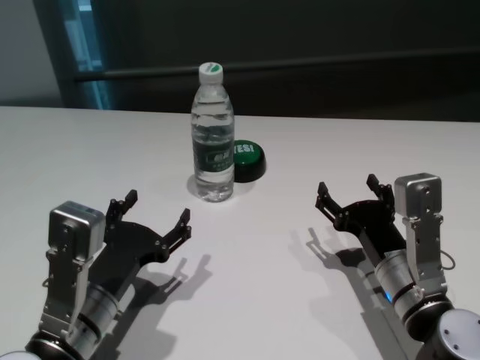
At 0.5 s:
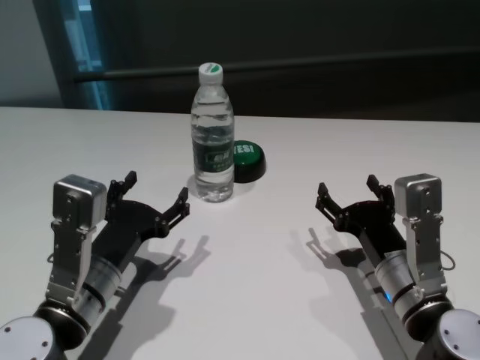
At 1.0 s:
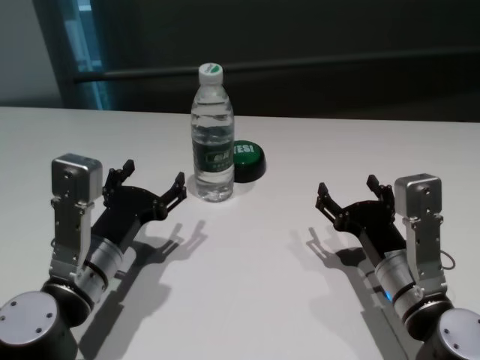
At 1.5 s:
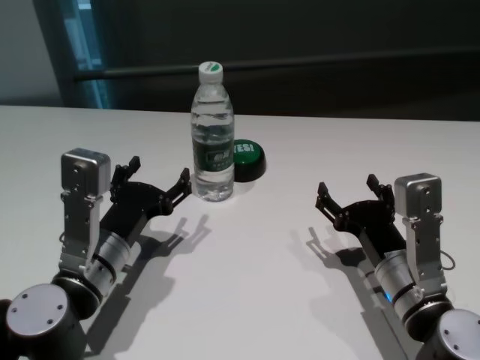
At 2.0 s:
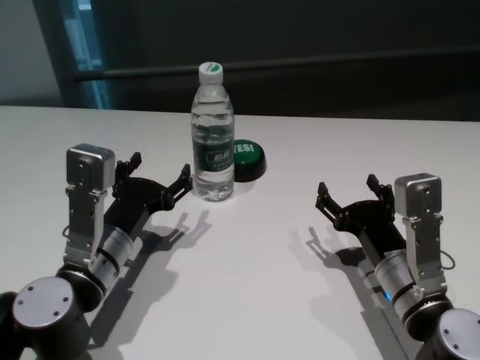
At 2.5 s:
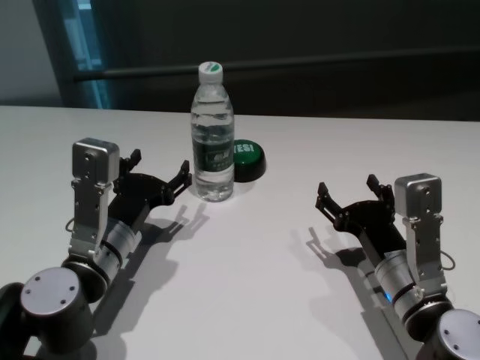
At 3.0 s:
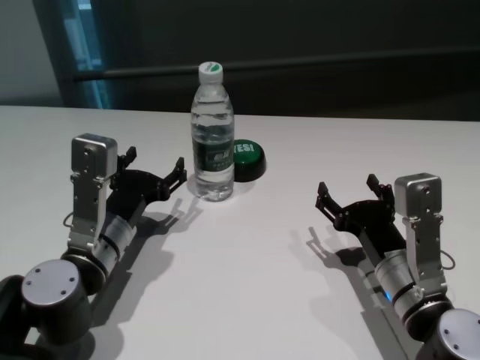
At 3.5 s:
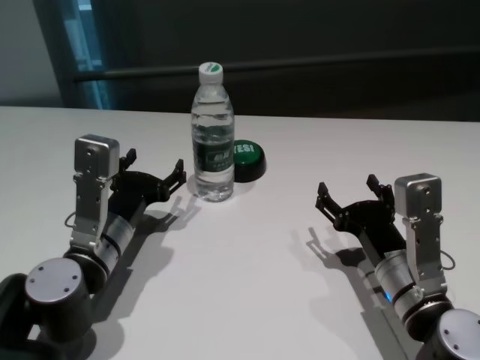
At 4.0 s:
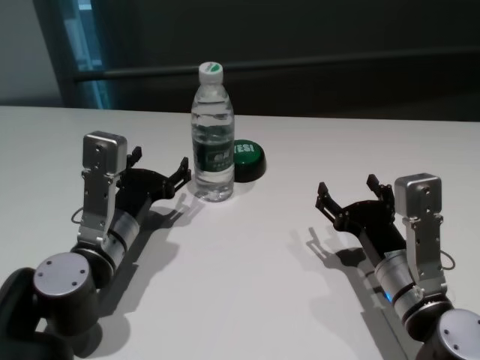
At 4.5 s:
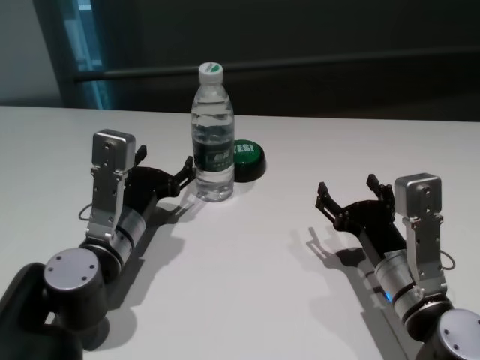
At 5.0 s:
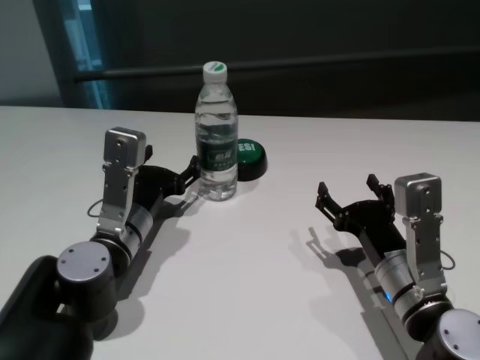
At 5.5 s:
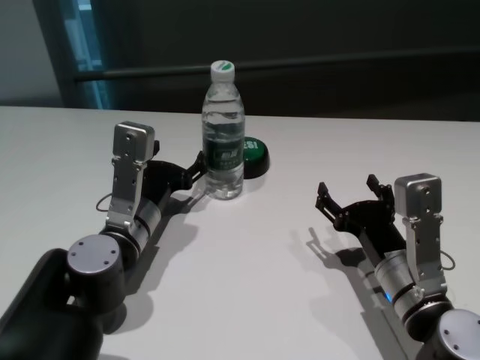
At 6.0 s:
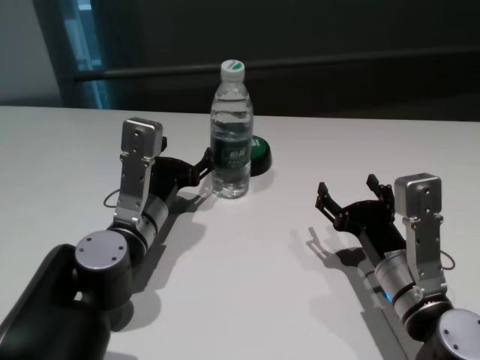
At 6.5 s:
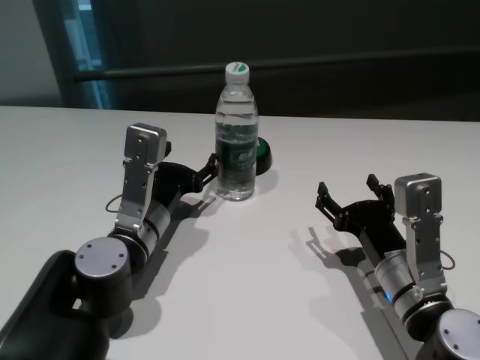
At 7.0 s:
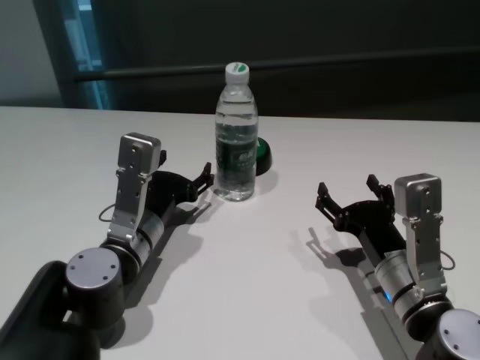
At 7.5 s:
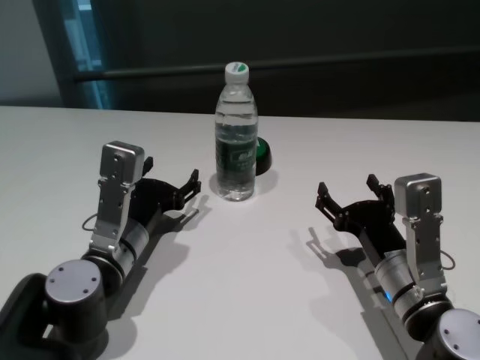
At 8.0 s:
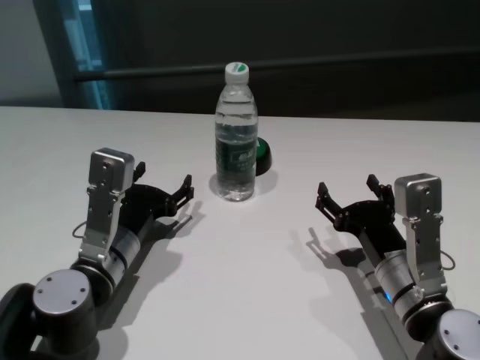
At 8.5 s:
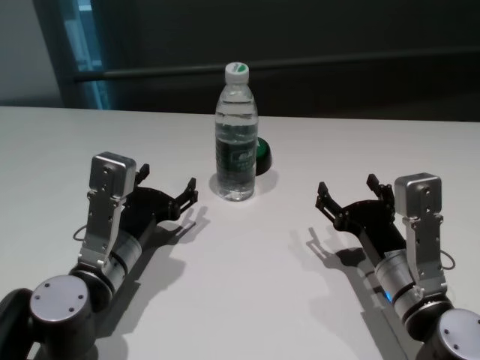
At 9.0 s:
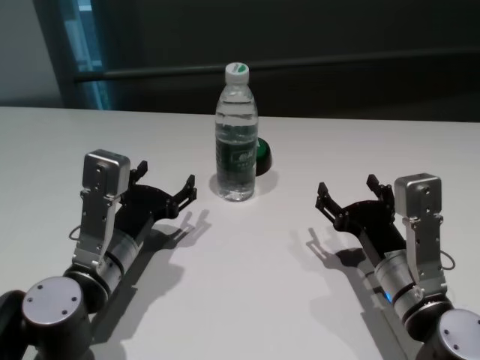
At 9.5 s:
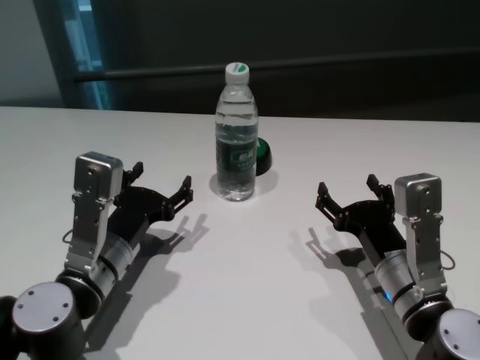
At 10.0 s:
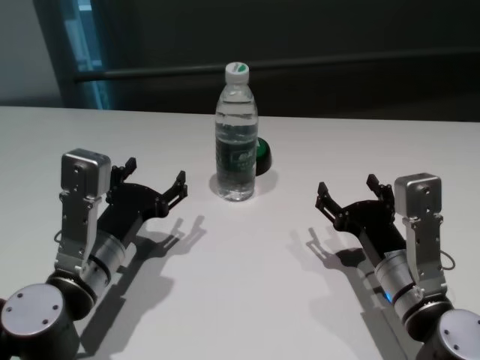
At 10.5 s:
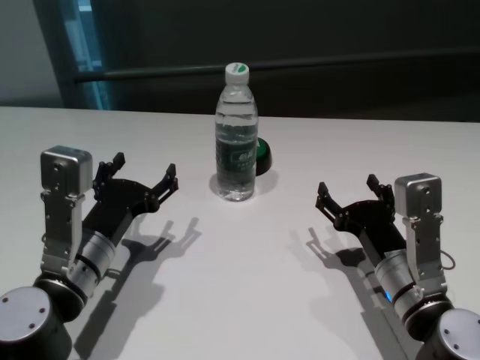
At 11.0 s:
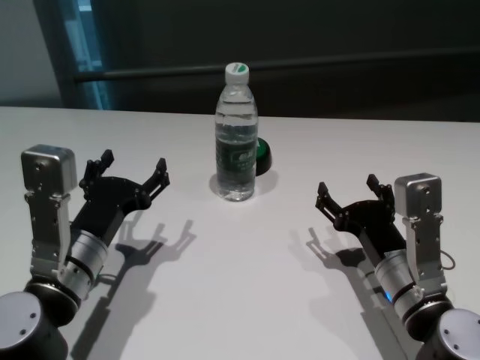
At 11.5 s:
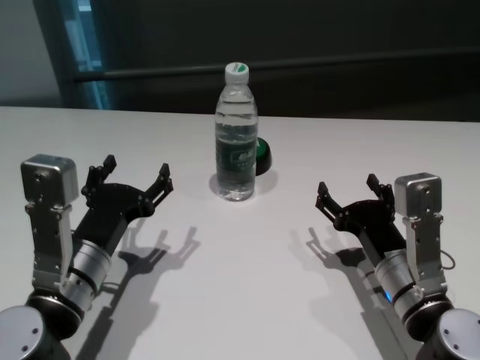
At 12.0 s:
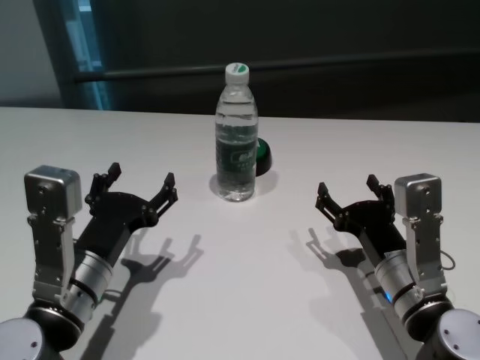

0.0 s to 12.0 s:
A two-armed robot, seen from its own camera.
Task of the whole recording: return to a safe position after touching an obstacle with your arm on the white table.
Step, 0.0 to 6.5 s: Touch the bottle with left gripper.

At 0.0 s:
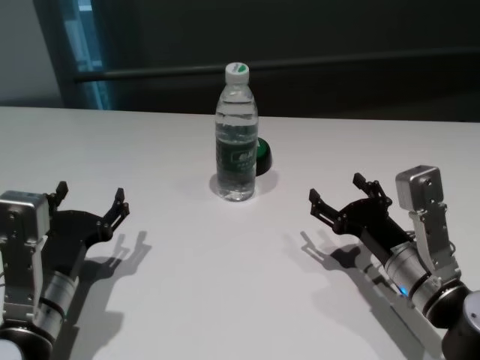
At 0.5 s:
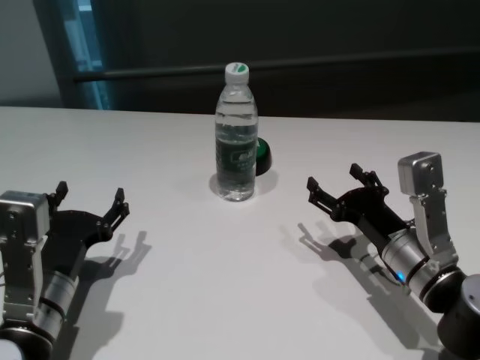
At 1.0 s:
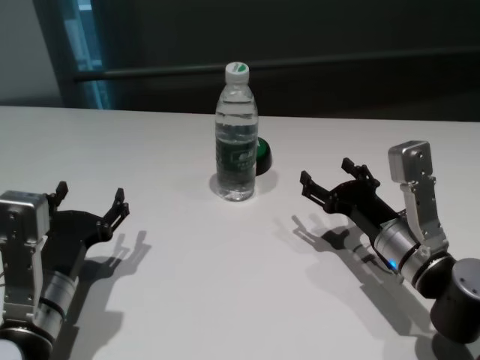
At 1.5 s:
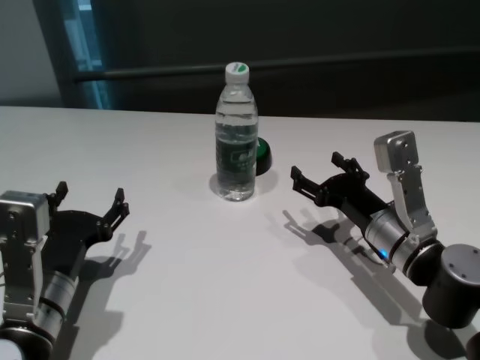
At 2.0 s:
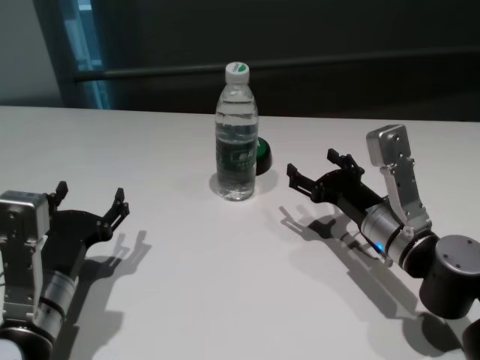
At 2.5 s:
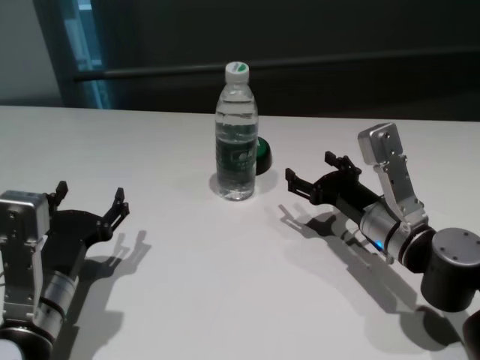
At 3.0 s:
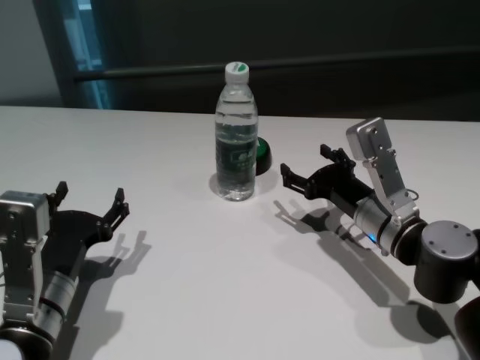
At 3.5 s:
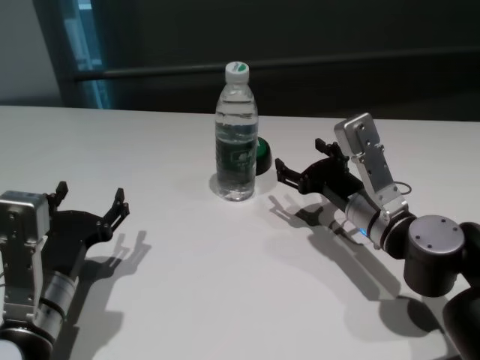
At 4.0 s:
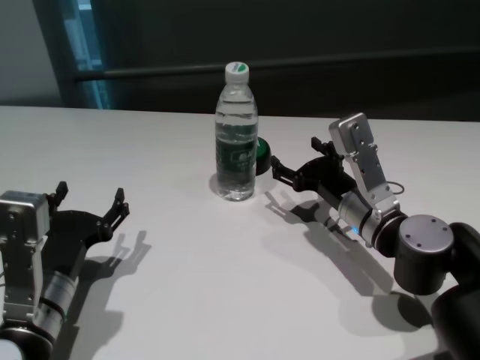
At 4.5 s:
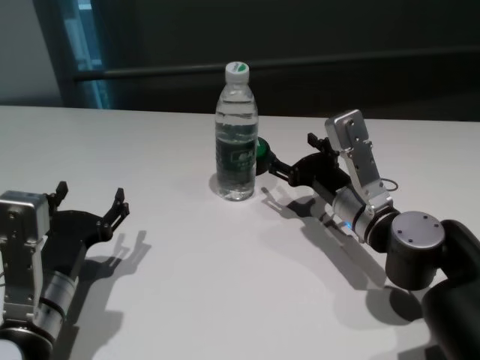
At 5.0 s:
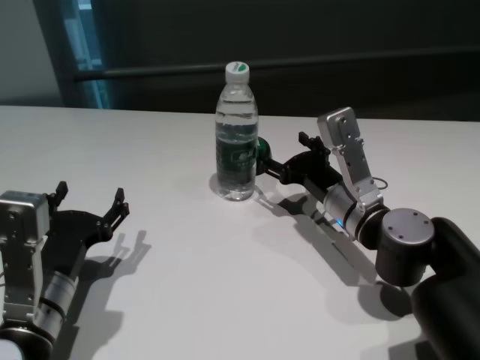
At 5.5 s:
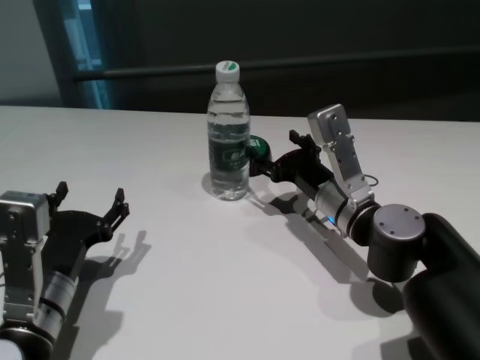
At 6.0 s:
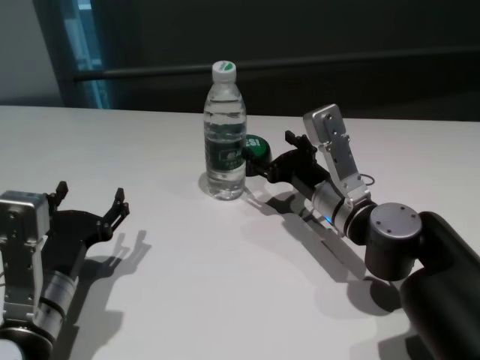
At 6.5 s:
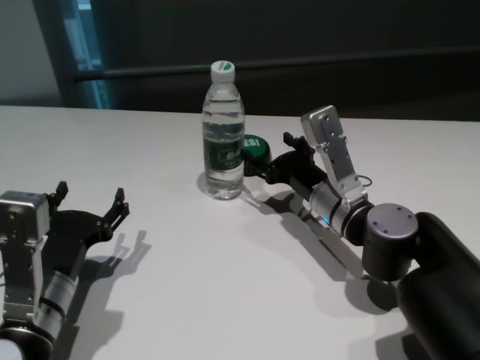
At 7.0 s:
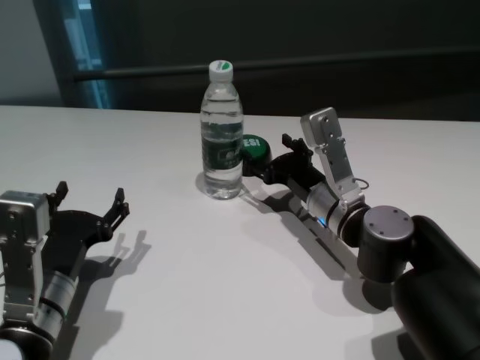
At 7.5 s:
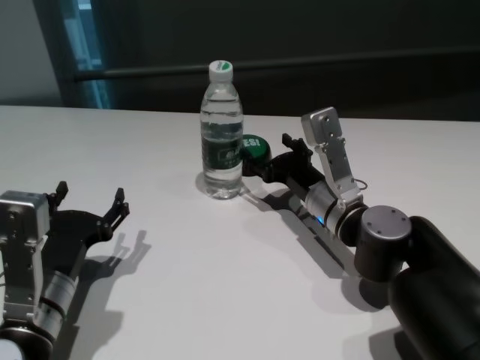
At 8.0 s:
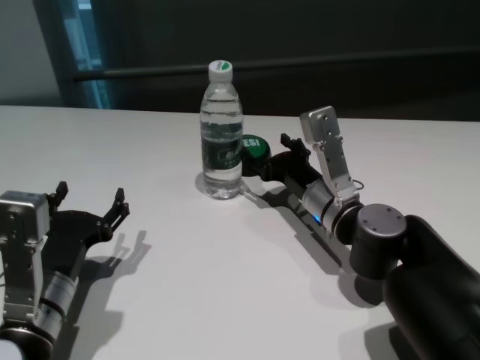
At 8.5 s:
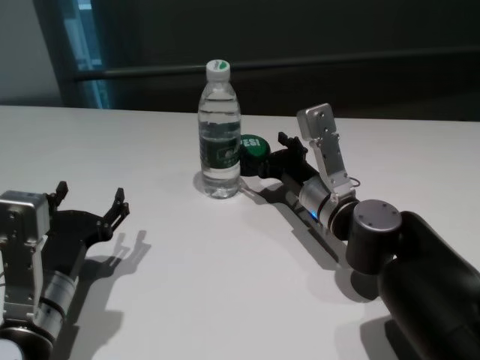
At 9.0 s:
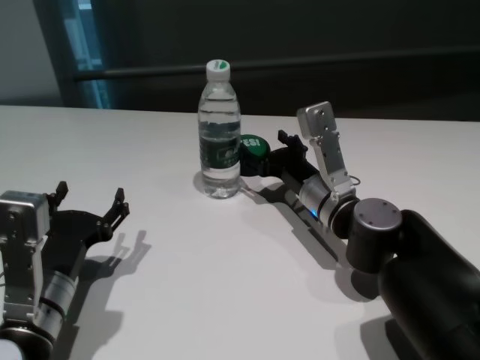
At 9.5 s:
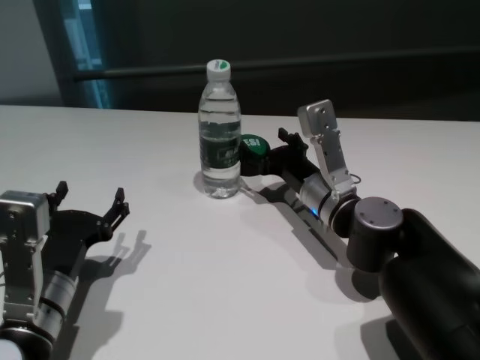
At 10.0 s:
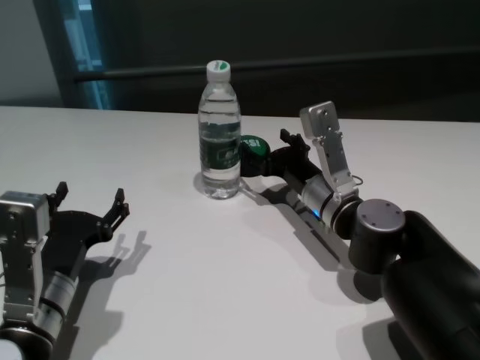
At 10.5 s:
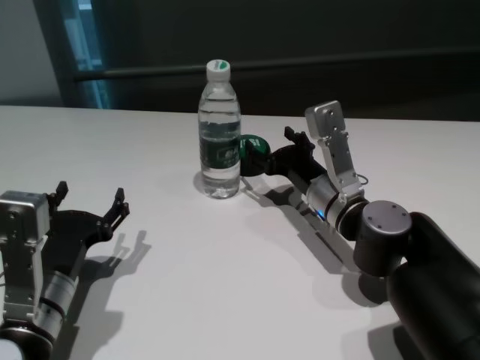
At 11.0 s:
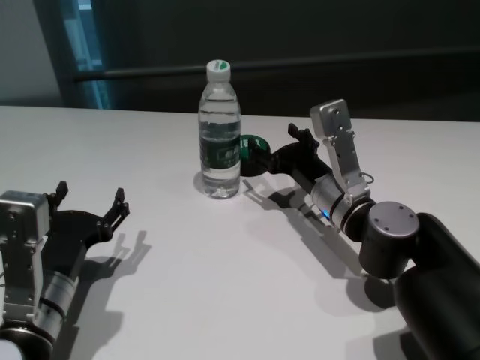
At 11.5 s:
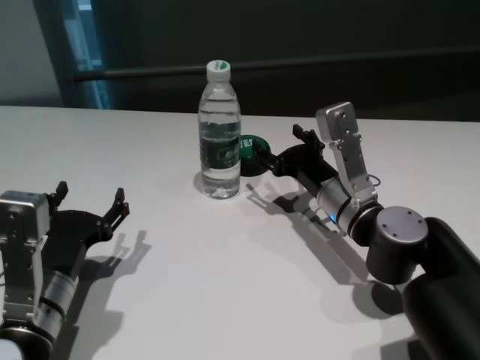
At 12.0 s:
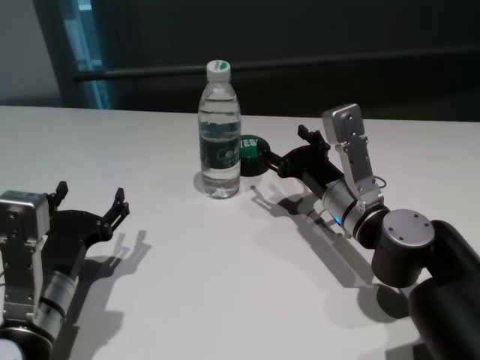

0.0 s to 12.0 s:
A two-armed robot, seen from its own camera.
Task of the whole recording: return to a safe position after touching an obstacle with your arm on the white table.
Step, 0.0 to 11.0 s: Touch the bottle with right gripper.

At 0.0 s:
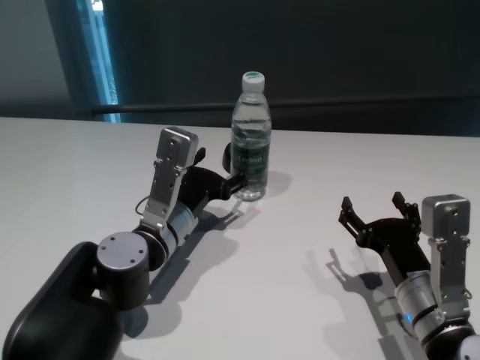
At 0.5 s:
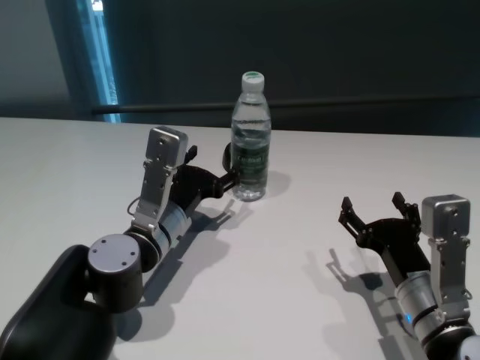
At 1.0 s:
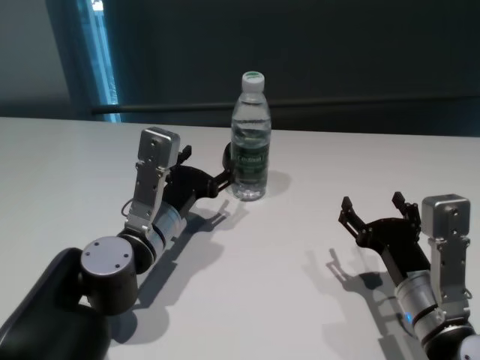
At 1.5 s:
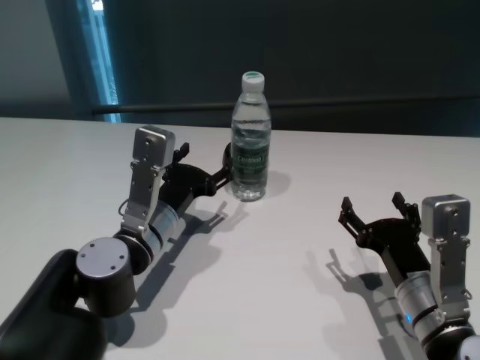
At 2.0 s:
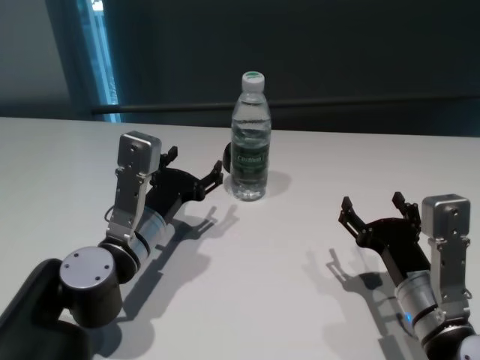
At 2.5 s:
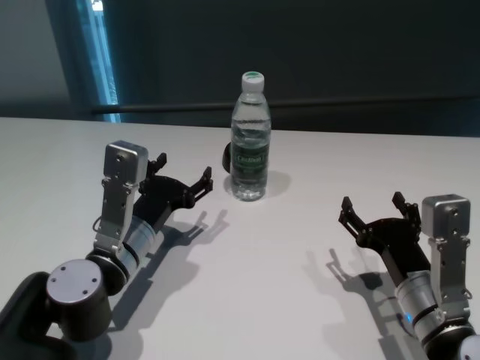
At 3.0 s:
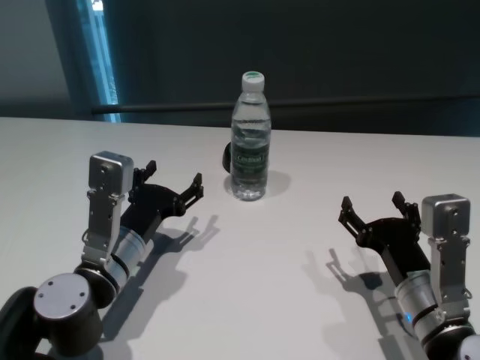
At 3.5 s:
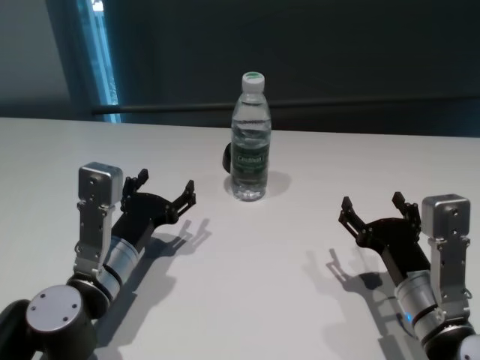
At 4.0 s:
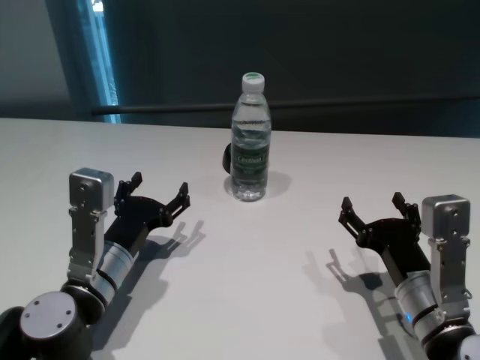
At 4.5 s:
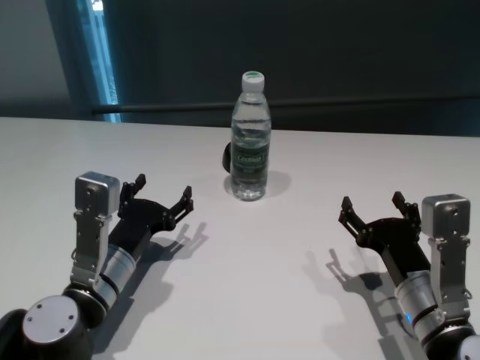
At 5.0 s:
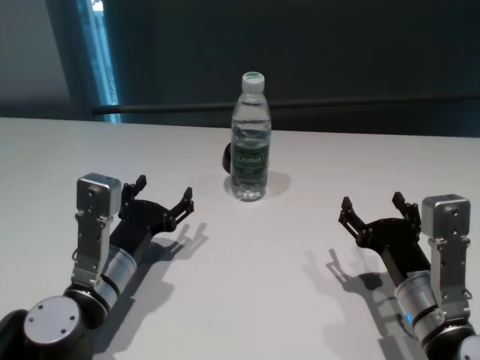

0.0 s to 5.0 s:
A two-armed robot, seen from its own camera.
Task of the whole recording: return to a safe position after touching an obstacle with your arm on the white table.
Step, 0.0 to 2.0 s: Touch the bottle with left gripper.
